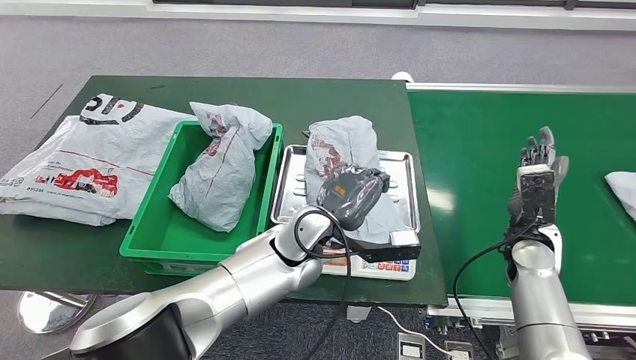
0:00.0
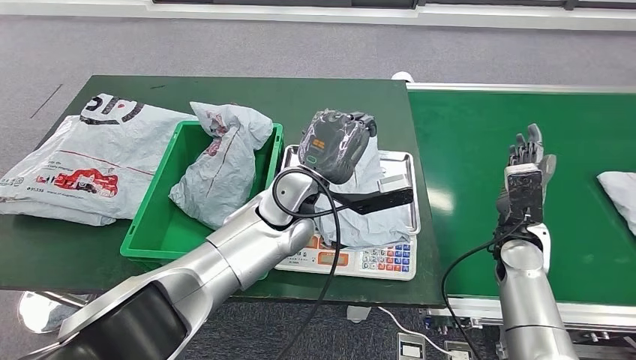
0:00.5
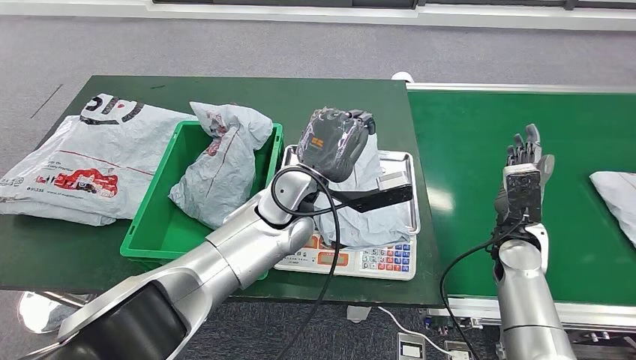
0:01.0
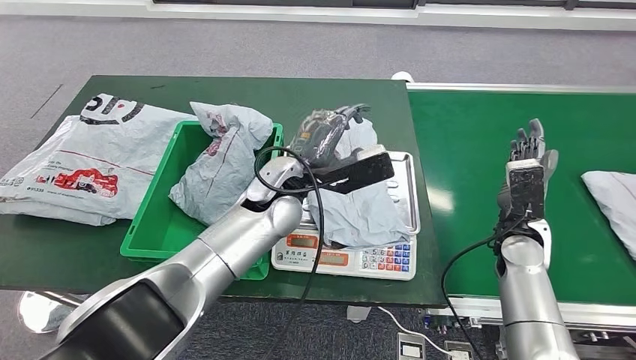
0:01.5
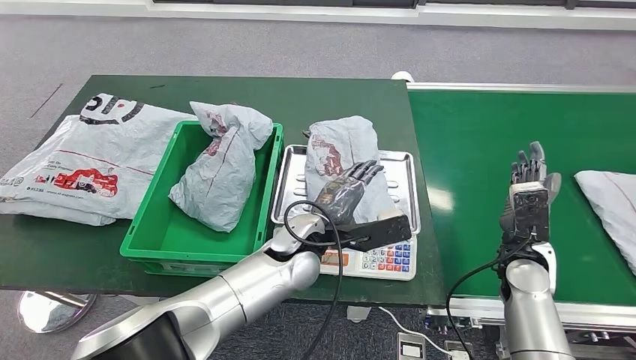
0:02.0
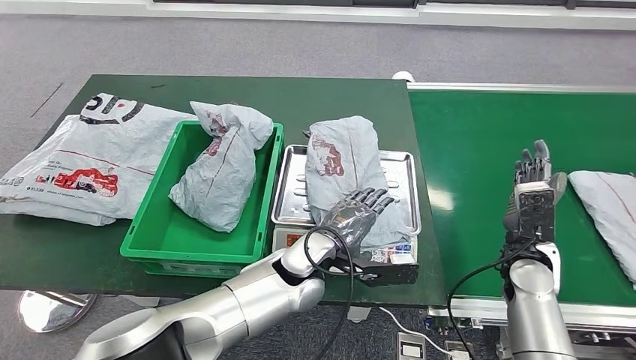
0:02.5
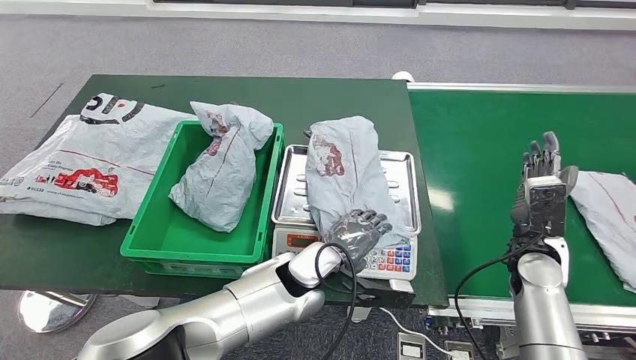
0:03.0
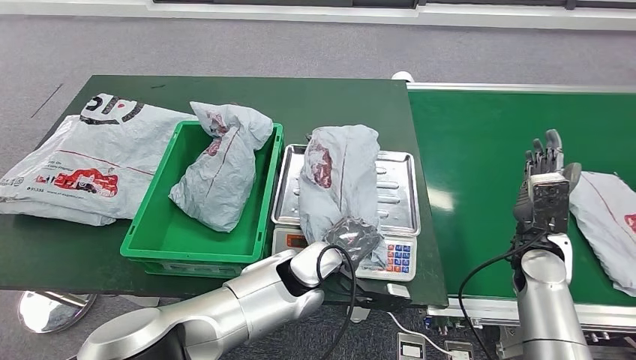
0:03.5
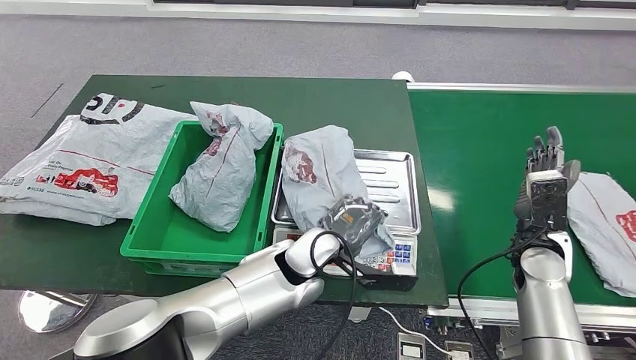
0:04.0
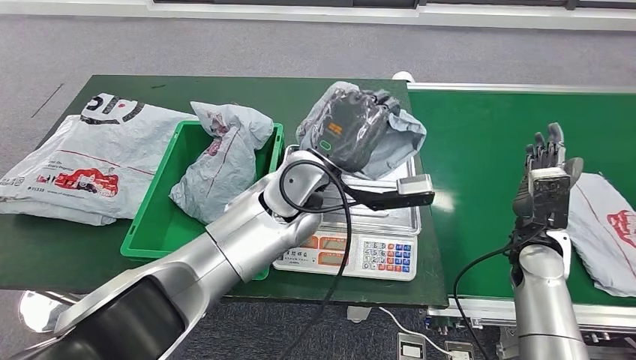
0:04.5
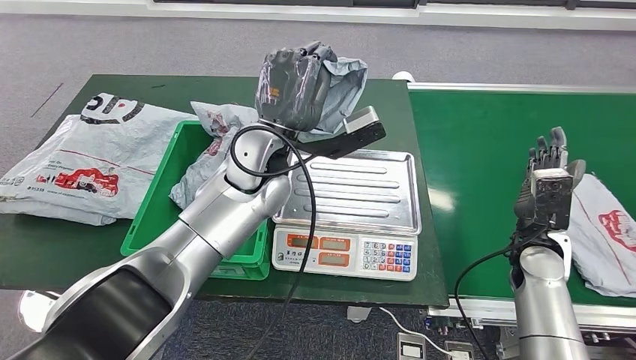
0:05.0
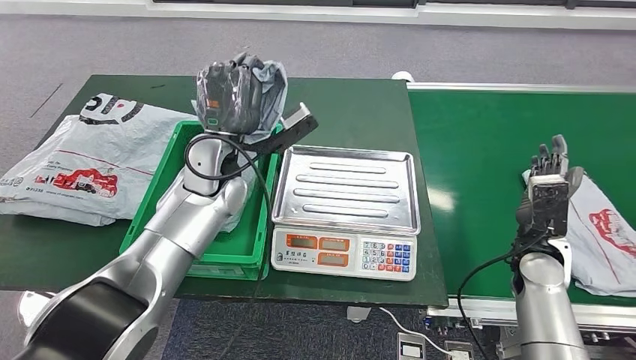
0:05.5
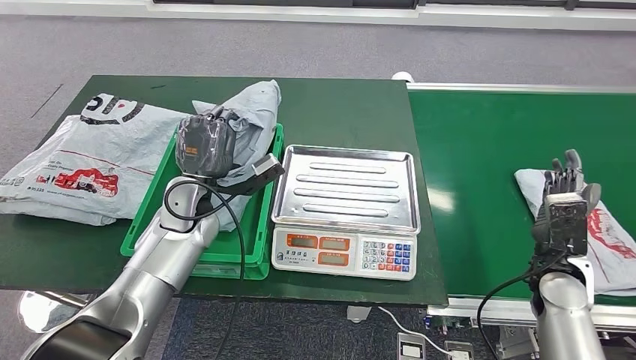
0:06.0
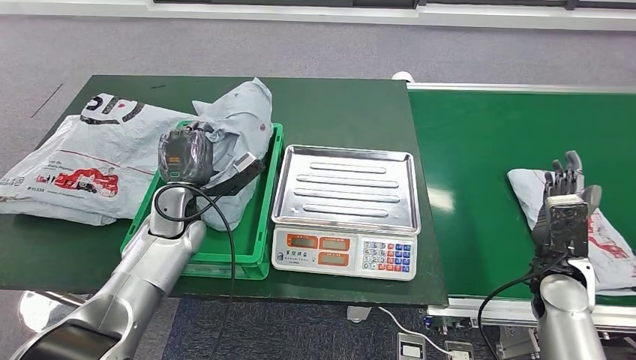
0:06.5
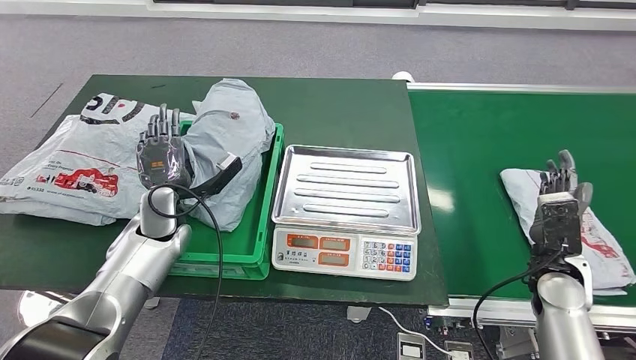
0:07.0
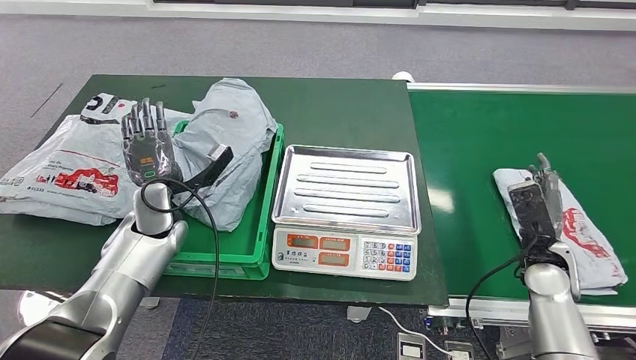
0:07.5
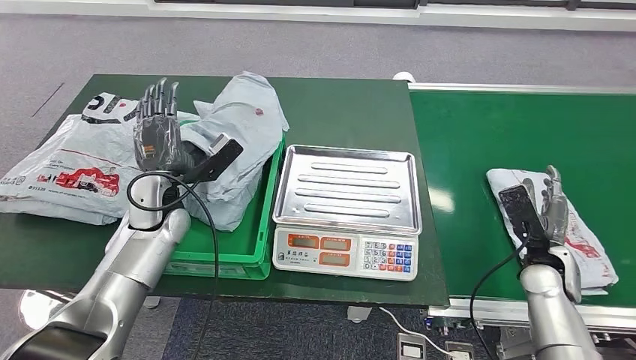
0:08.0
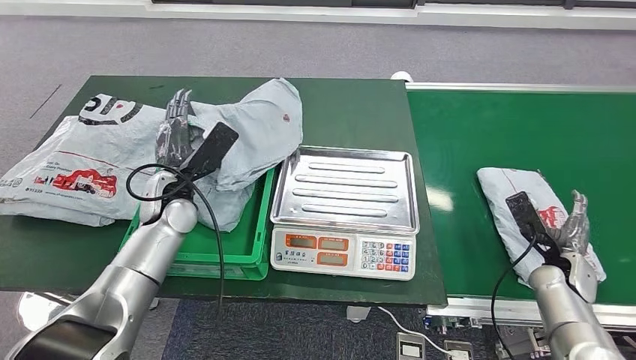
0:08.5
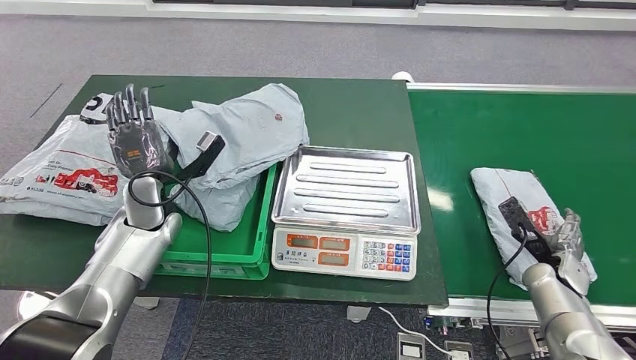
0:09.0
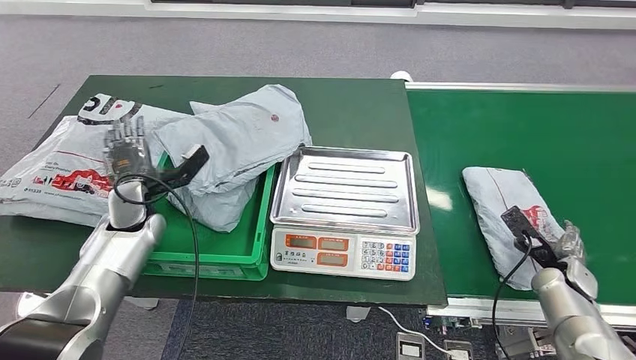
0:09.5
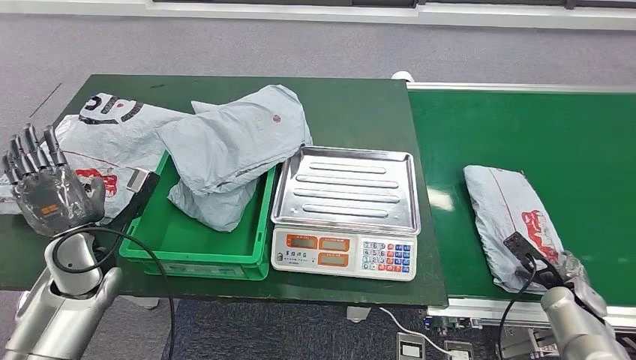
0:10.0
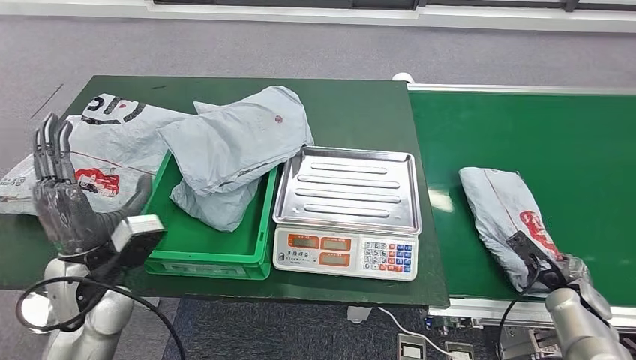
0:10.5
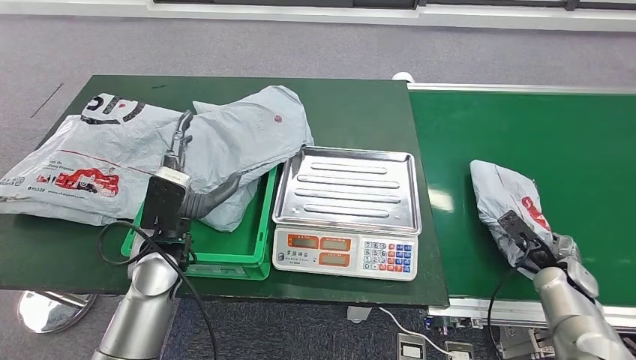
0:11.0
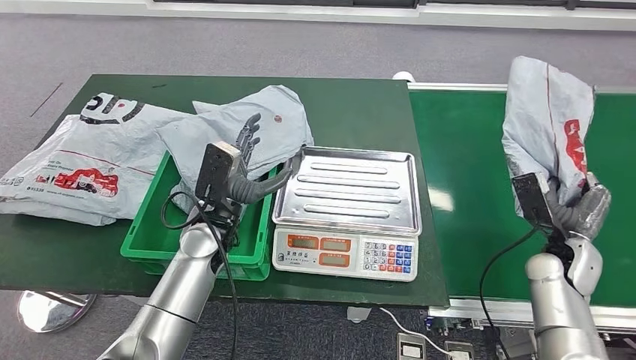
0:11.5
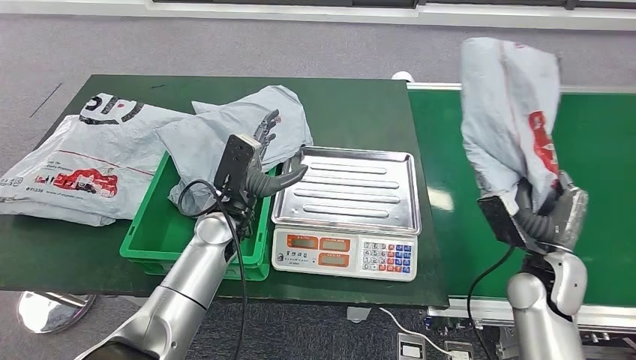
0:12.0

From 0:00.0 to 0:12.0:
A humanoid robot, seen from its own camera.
Step, from 0:04.0 to 0:05.5: Pick up the parcel from the inbound machine.
Step, from 0:06.0 to 0:09.0: Place the parcel into the delivery box.

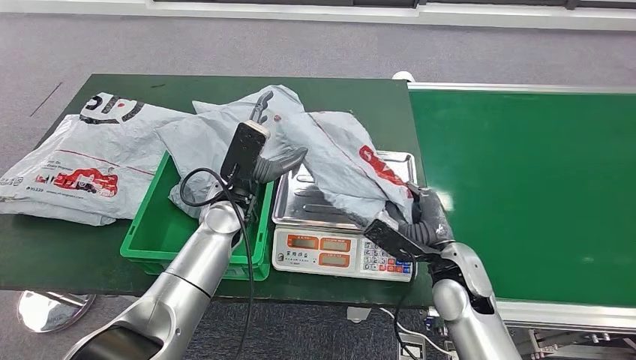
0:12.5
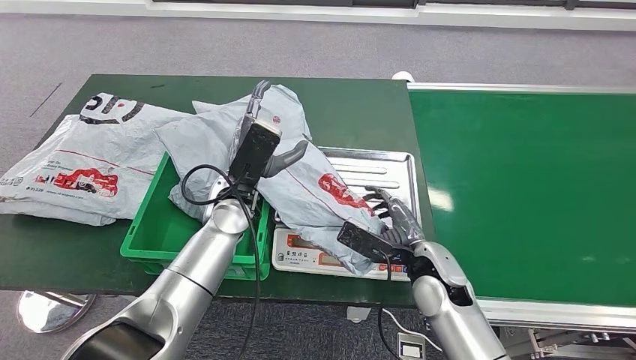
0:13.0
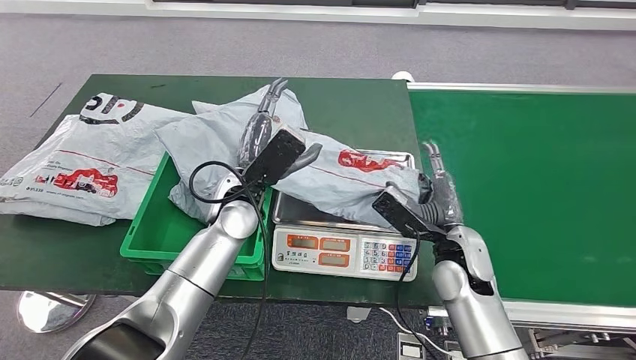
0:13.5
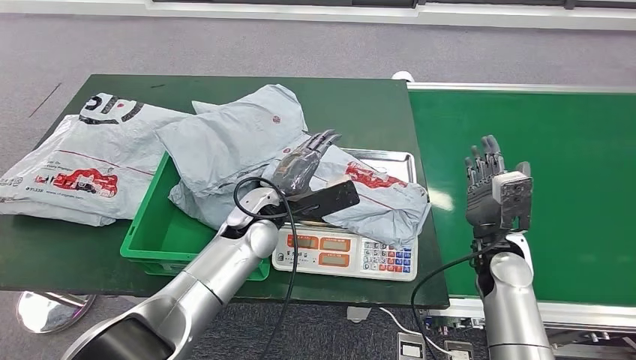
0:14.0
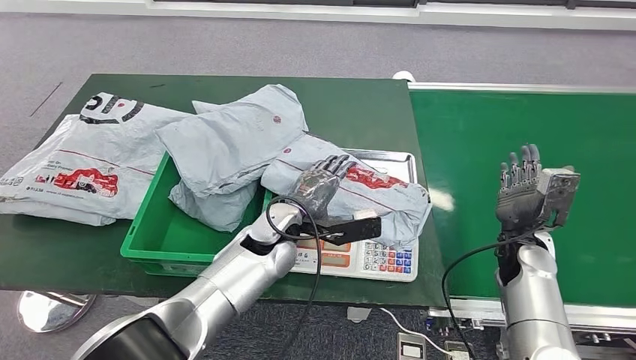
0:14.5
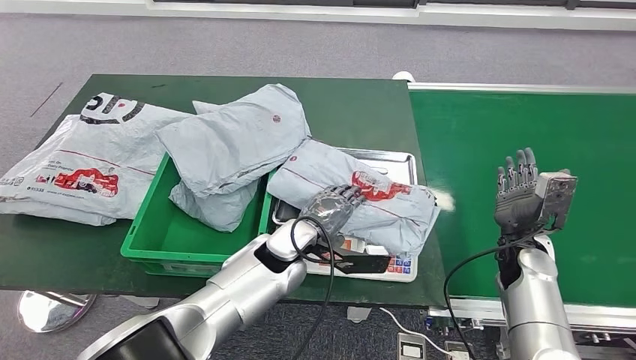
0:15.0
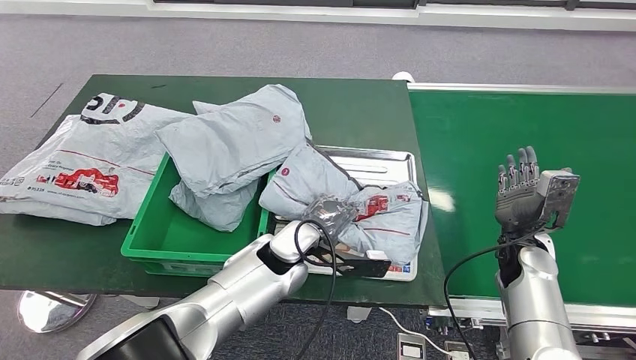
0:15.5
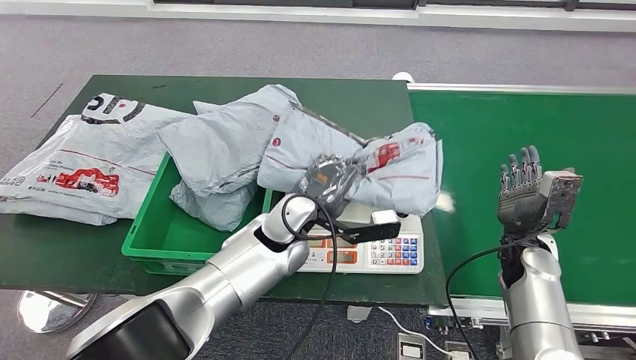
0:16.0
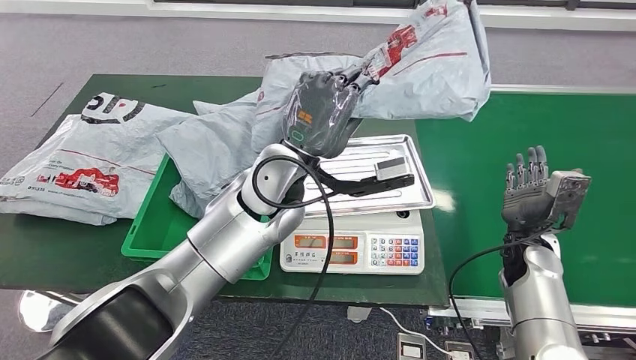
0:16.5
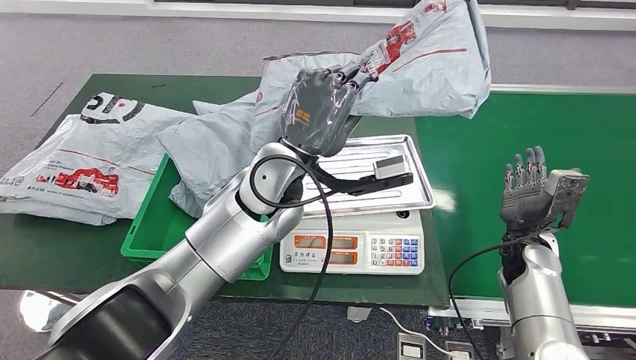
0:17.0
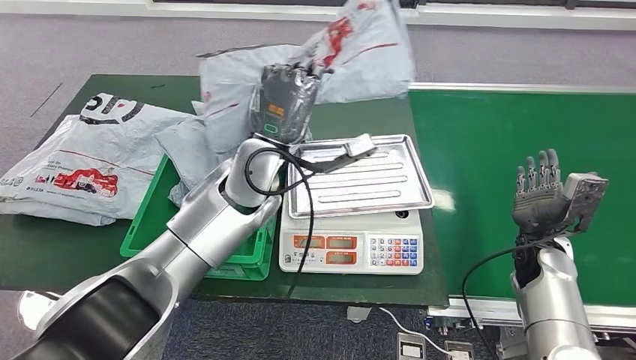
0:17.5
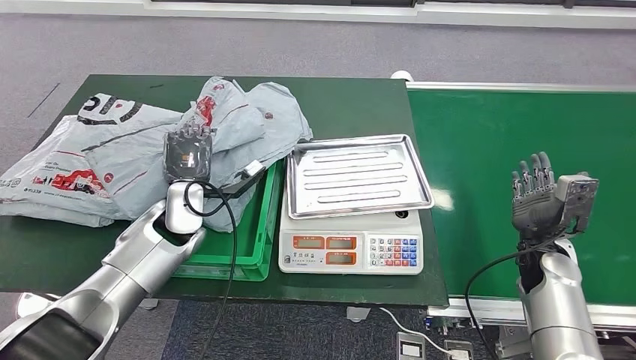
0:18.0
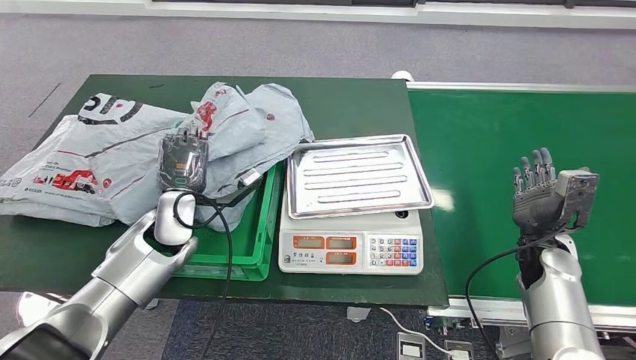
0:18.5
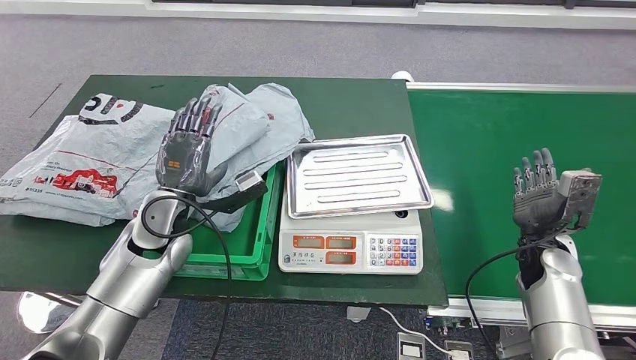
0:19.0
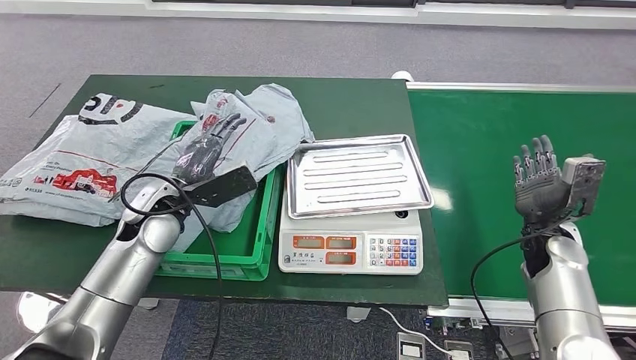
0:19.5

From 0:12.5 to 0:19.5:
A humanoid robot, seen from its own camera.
Step, from 0:12.5 to 0:14.0: Place the parcel onto the inbound machine.
Step, from 0:14.5 to 0:17.0: Pick up the parcel from the inbound machine.
Step, from 0:17.5 to 0:19.5: Place the parcel into the delivery box.

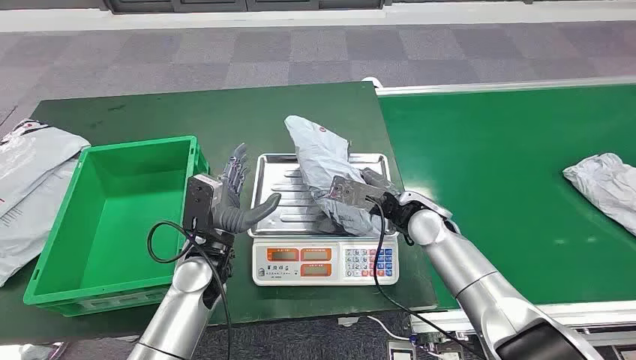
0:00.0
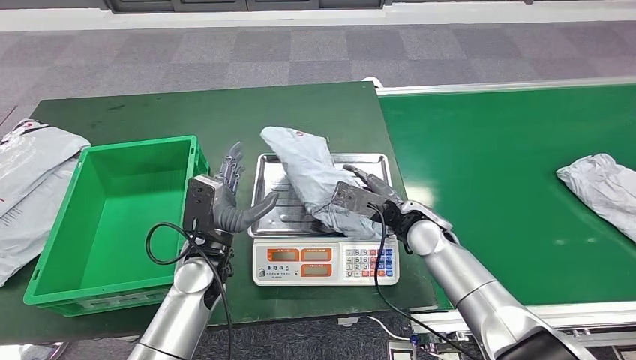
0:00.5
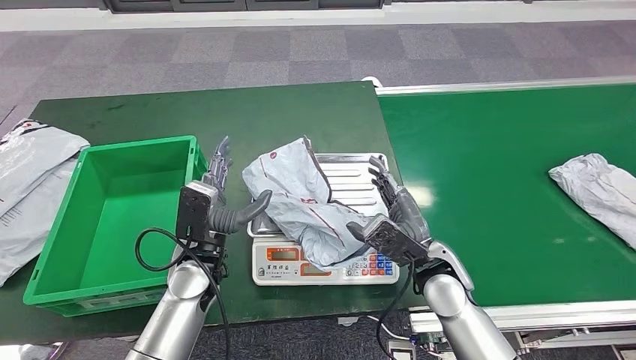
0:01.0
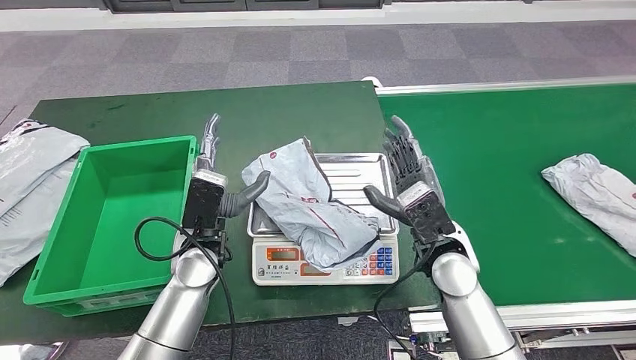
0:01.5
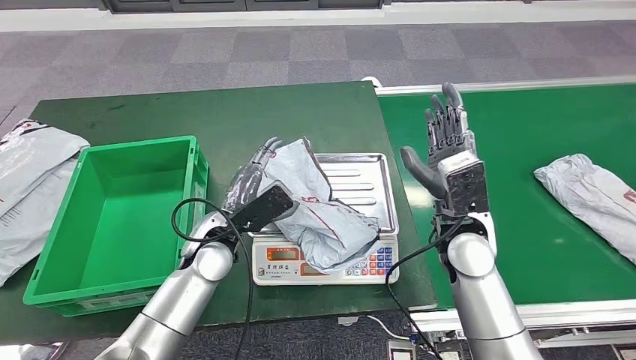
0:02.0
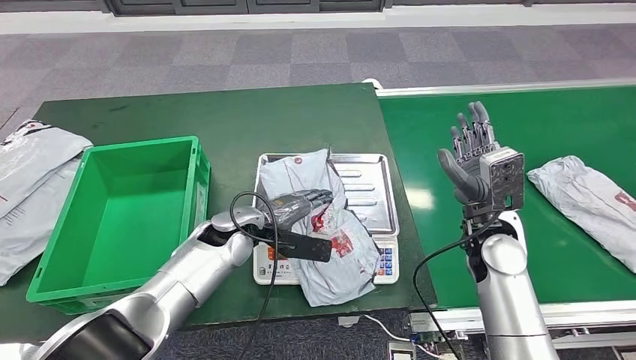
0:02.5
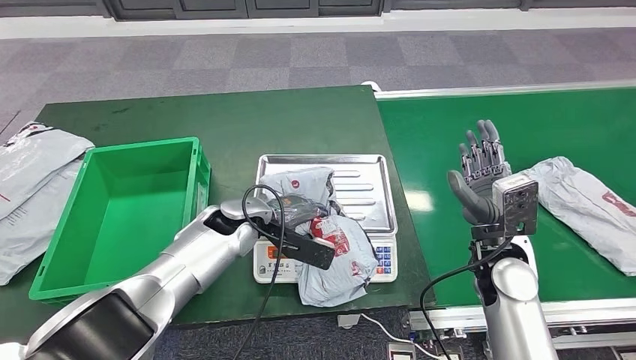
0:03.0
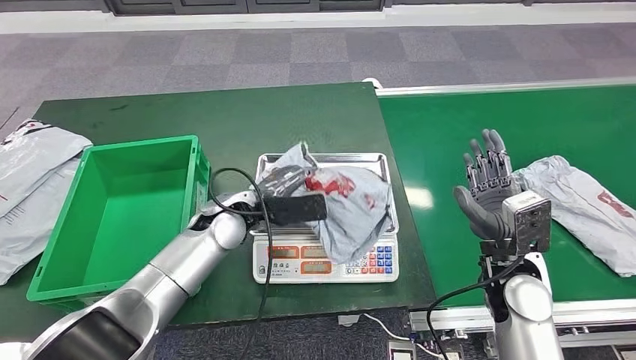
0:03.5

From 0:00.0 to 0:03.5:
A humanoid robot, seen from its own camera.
Step, from 0:02.0 to 0:02.5: Place the parcel onto the inbound machine.
